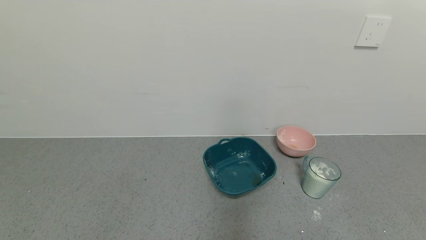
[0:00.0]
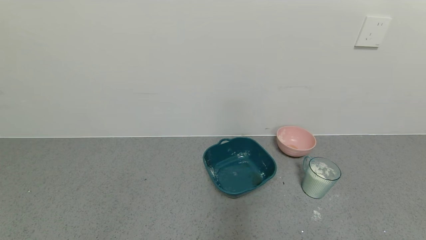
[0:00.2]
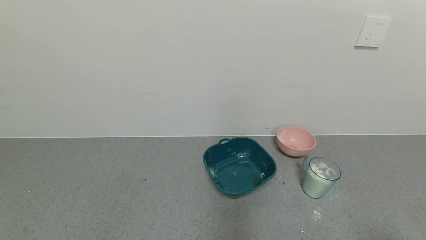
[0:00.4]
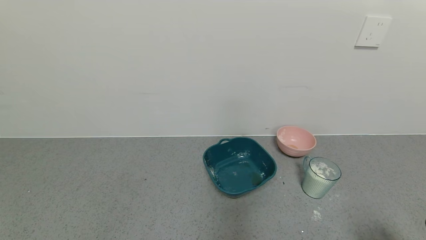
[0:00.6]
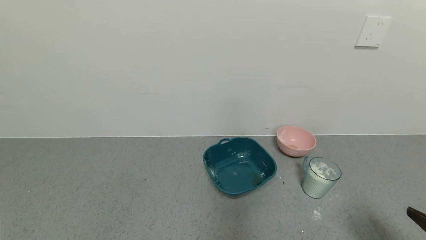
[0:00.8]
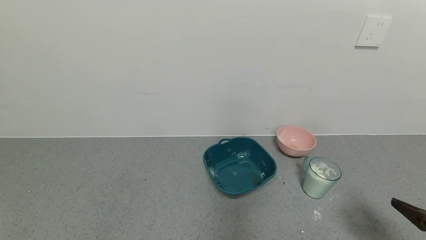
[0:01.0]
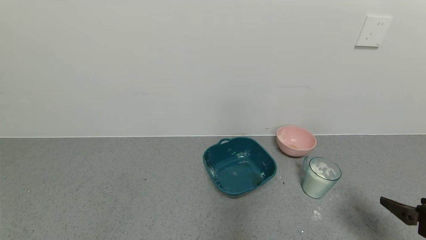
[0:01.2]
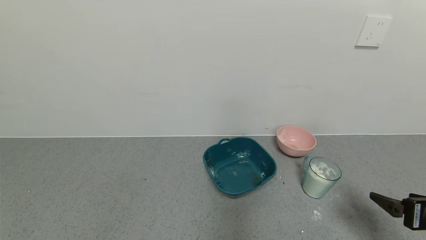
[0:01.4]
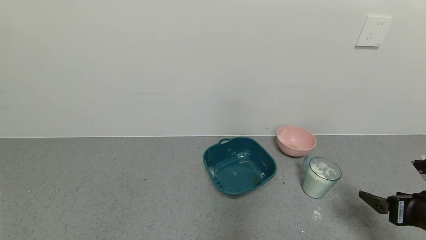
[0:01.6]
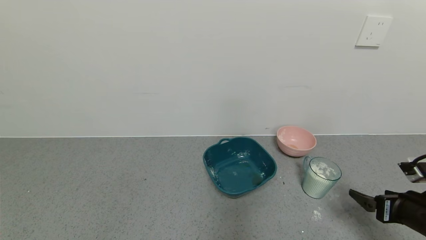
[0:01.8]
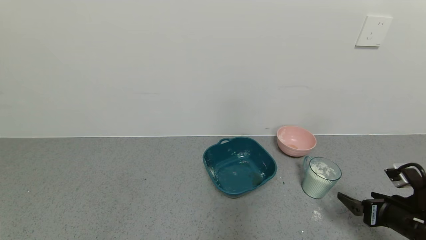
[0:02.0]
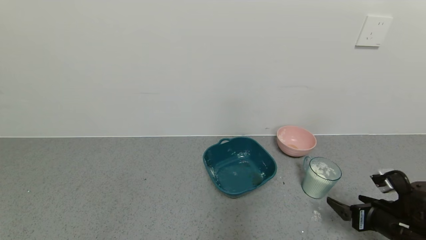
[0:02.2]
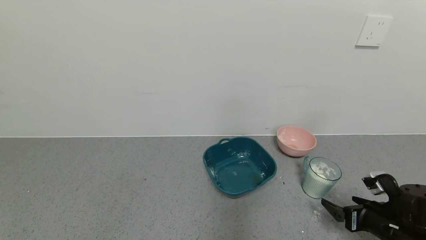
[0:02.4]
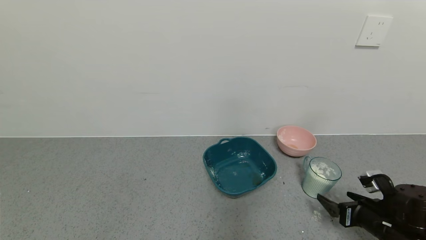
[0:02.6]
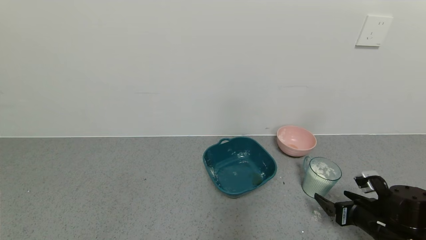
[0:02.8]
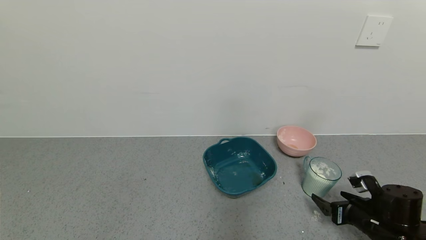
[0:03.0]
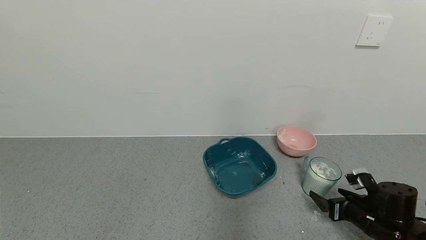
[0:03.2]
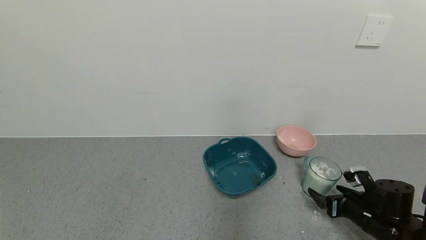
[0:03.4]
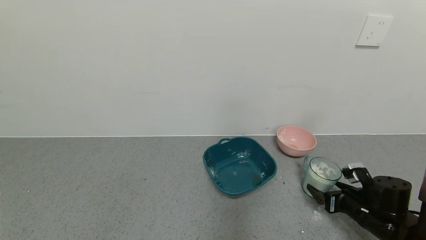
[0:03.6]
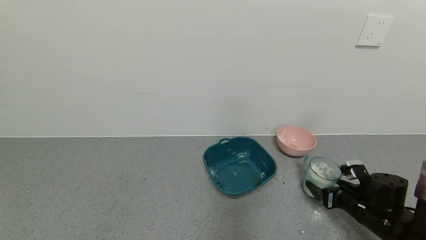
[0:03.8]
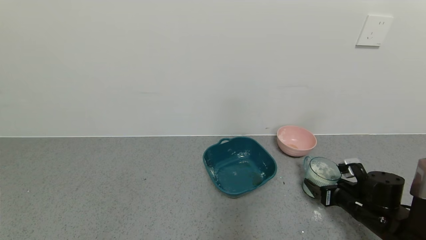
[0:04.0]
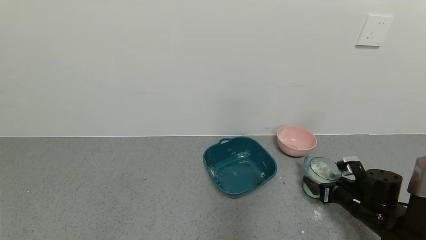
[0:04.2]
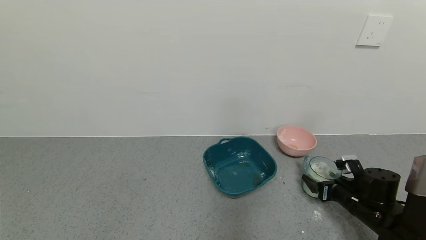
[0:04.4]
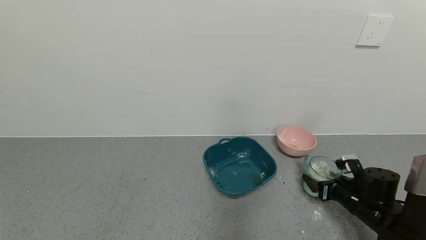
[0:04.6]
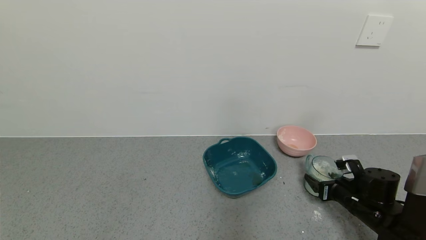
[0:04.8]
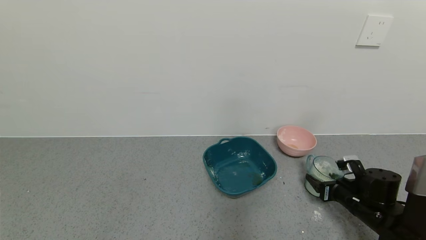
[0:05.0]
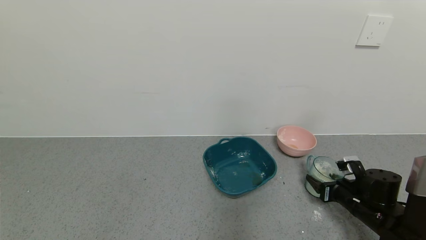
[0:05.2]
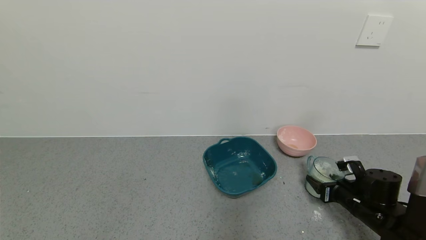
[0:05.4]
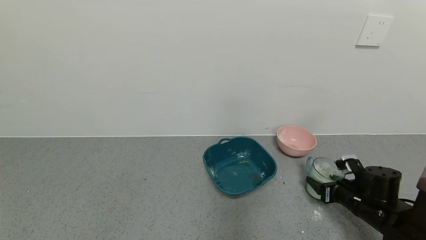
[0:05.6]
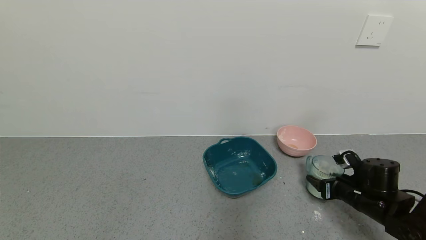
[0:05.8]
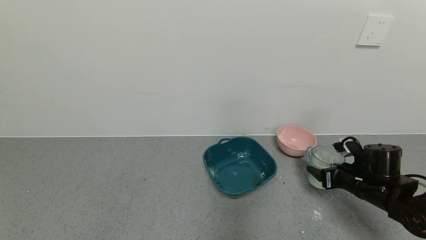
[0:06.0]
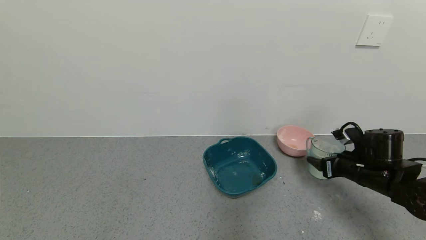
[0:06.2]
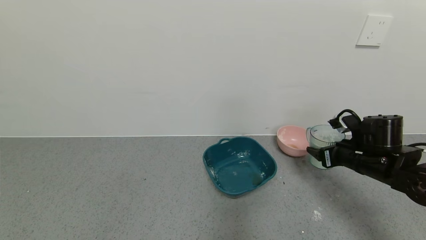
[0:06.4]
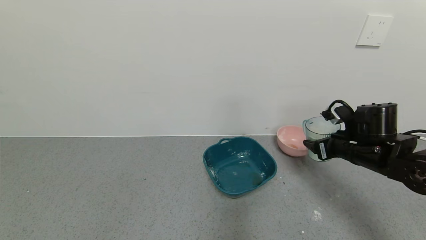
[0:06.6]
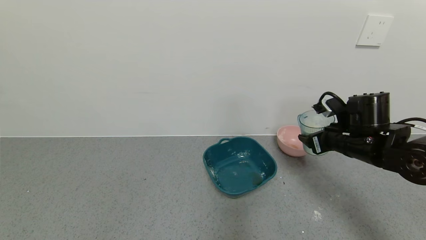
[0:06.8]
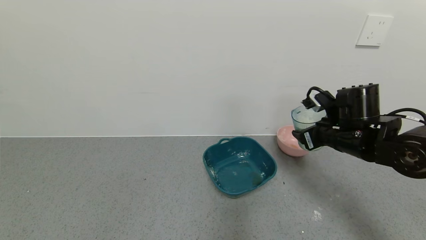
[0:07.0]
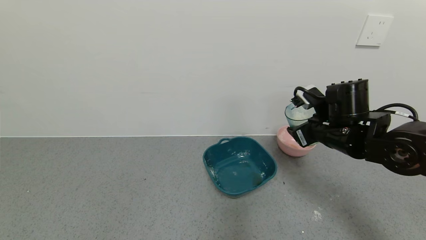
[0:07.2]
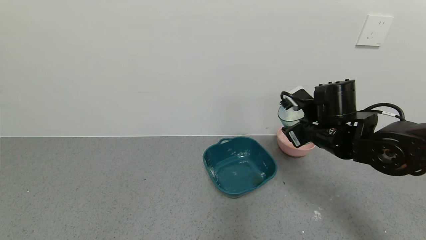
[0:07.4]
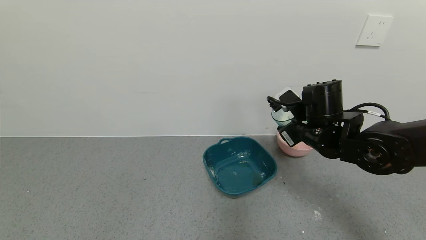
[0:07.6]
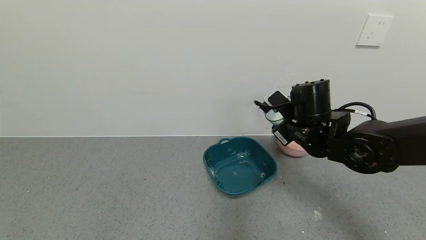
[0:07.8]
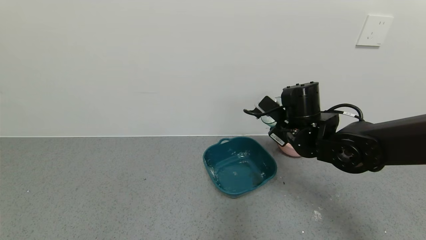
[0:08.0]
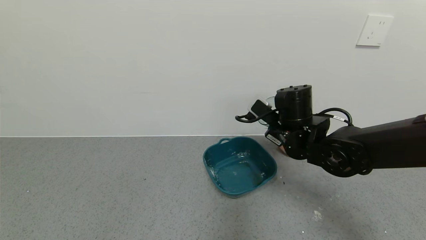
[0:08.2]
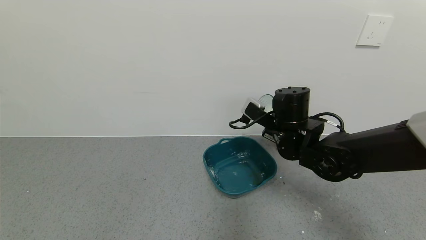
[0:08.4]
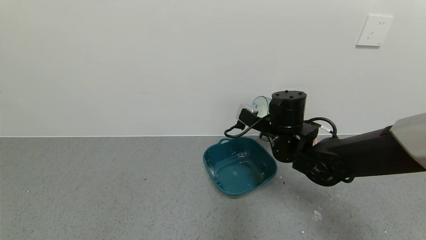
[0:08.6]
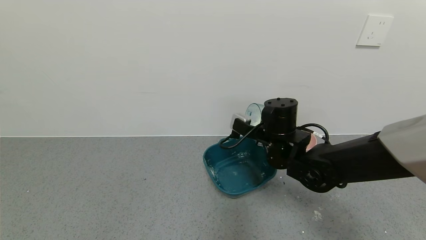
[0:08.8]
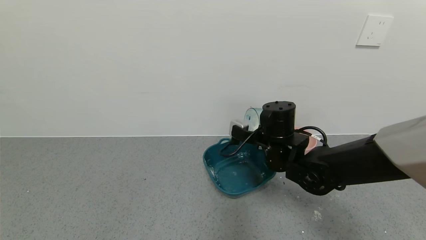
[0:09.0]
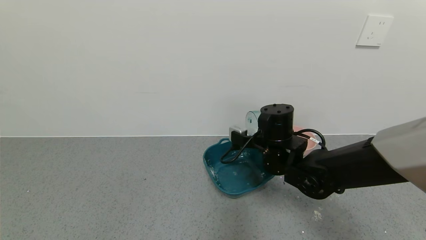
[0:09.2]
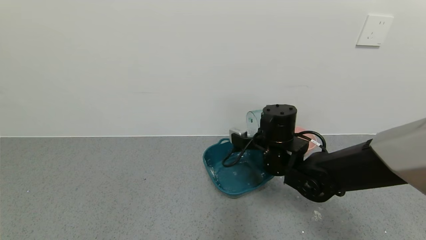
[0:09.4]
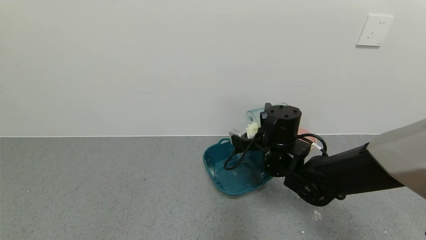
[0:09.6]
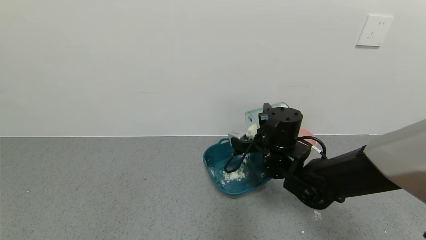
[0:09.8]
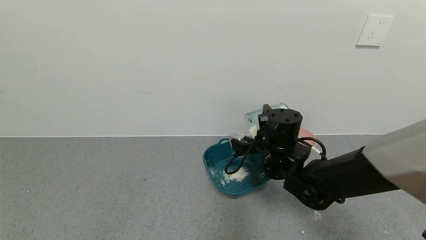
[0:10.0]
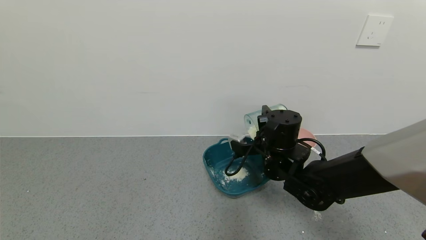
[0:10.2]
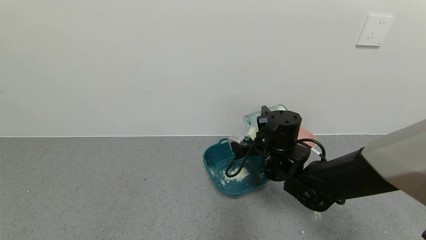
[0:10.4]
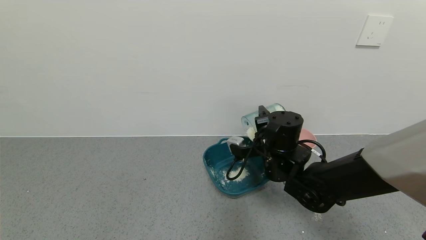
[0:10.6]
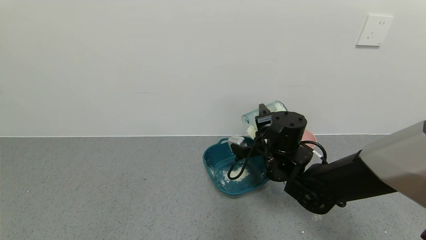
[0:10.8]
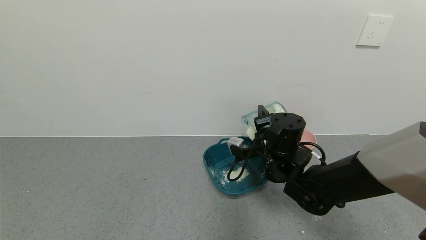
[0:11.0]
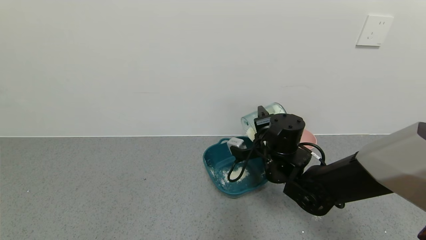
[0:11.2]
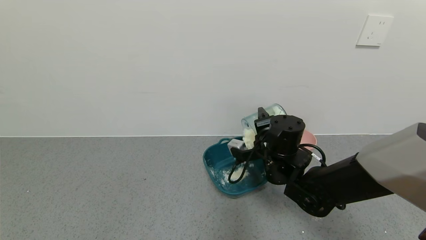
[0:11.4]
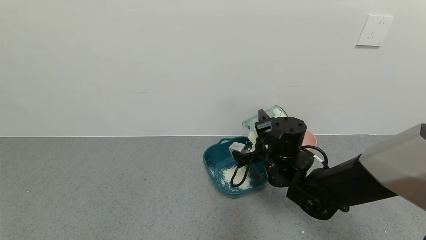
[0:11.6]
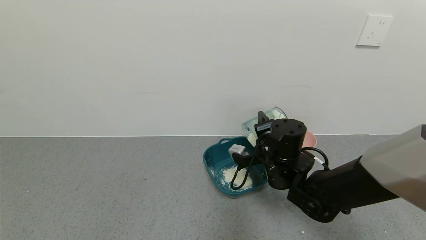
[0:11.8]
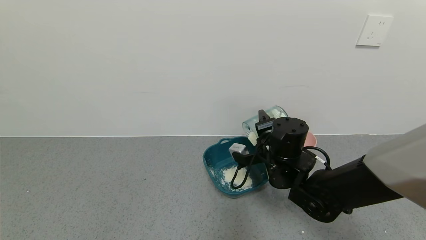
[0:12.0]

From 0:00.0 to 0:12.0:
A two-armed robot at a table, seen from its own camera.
Task of the whole recording: use a gripper to pick up the cup and pour the powder into a bowl or tray.
Step, from 0:00.0 to 0:04.6: Grasp the glass of powder with the right gripper.
From 0:00.0 to 0:01.6: The right gripper shifts some 20 cm forward.
From 0:01.6 to 0:03.0: The right gripper moves downward and forward, about 10 cm.
From 0:03.0 to 0:04.4: The right gripper shifts about 5 cm forward.
From 0:04.4 to 0:06.0: The right gripper shifts approximately 5 cm upward, and closes up.
From 0:06.0 to 0:07.6: The right gripper travels to the left and upward by roughly 20 cm.
From 0:07.6 to 0:09.0: The right gripper heads to the left, covering roughly 5 cm.
From 0:10.4 to 0:12.0: The grippers make only small movements.

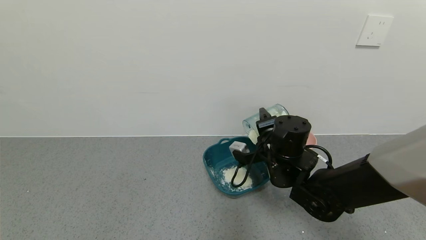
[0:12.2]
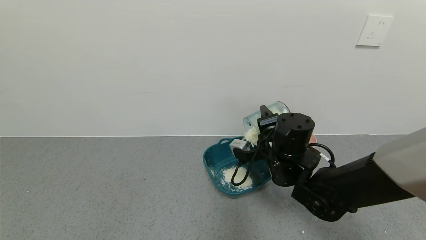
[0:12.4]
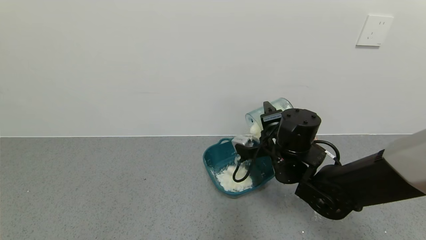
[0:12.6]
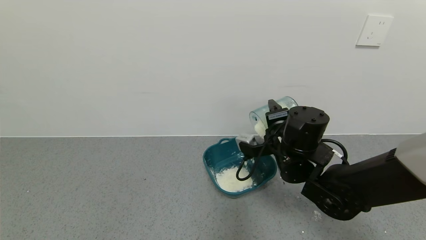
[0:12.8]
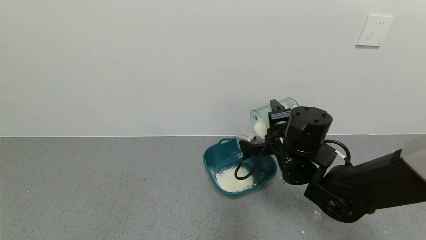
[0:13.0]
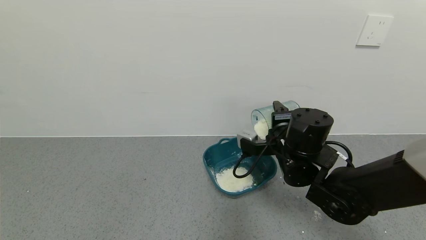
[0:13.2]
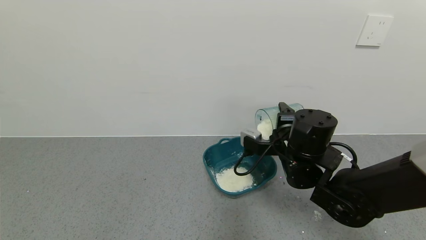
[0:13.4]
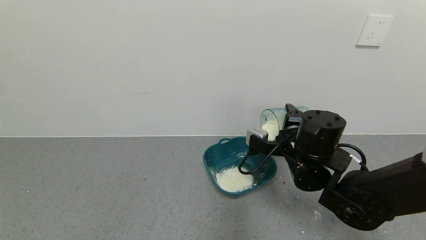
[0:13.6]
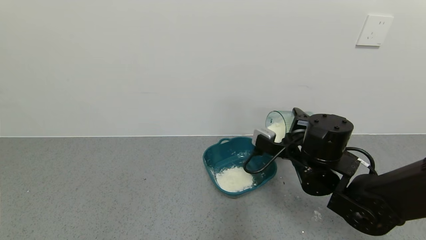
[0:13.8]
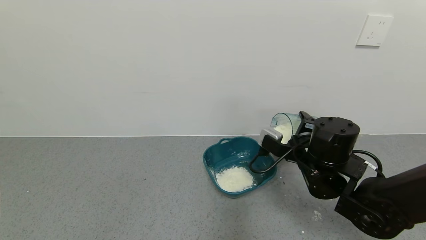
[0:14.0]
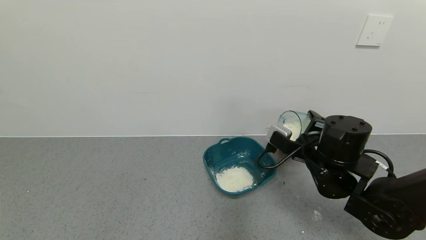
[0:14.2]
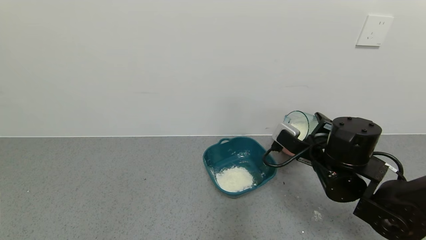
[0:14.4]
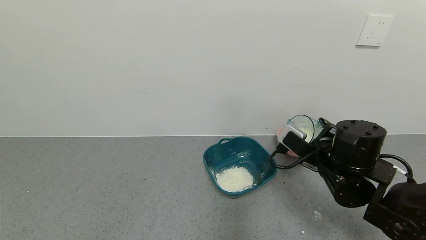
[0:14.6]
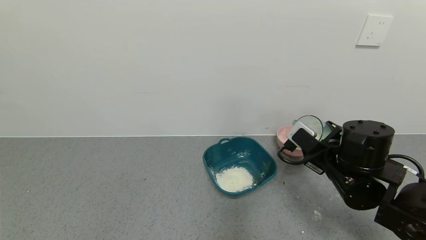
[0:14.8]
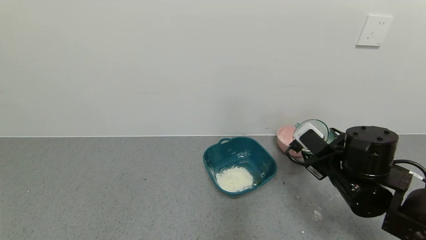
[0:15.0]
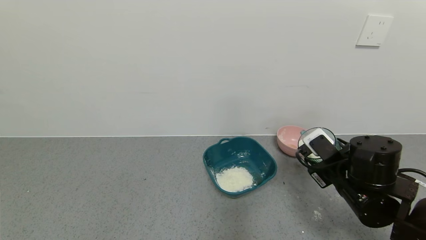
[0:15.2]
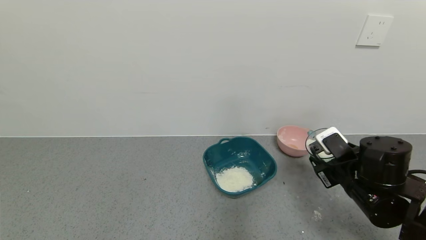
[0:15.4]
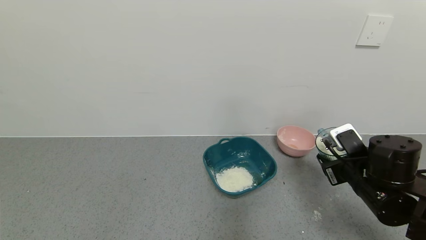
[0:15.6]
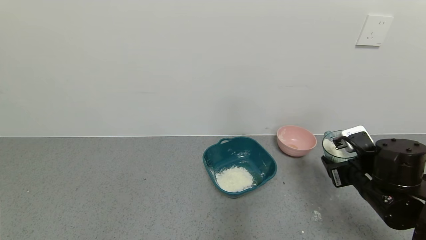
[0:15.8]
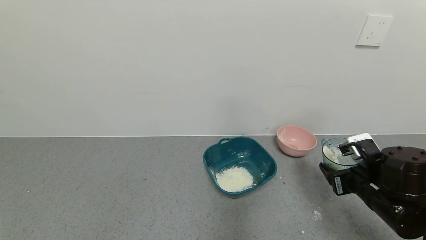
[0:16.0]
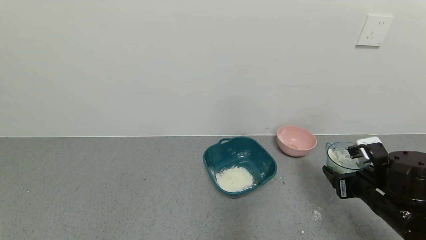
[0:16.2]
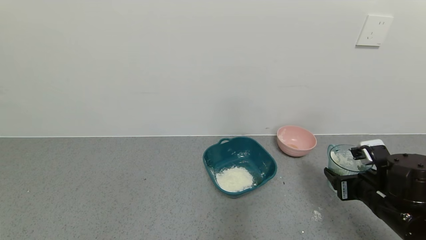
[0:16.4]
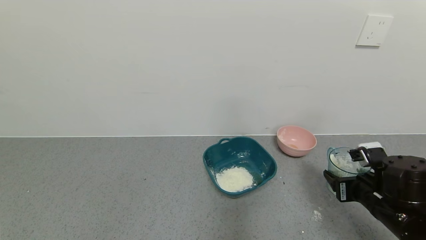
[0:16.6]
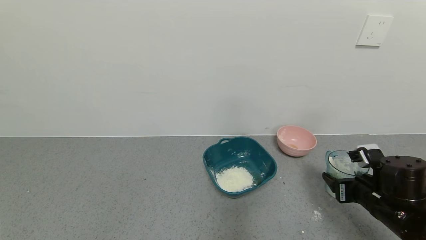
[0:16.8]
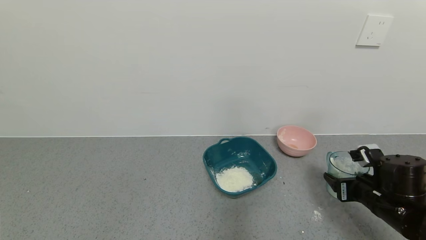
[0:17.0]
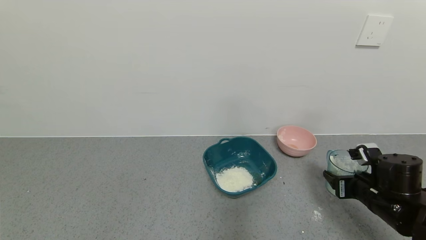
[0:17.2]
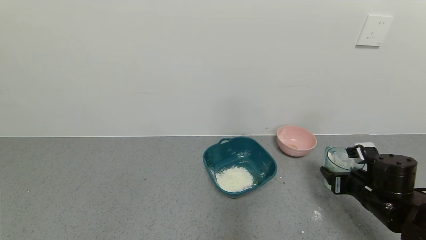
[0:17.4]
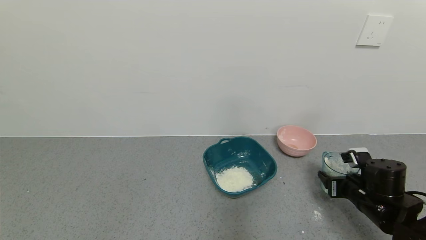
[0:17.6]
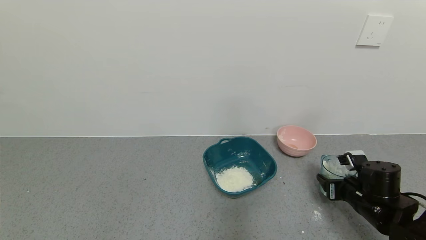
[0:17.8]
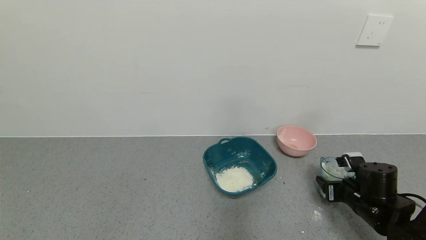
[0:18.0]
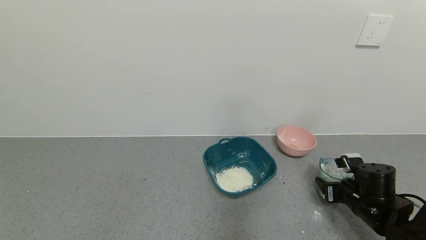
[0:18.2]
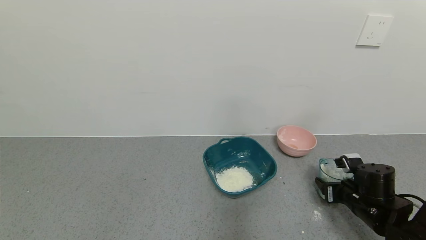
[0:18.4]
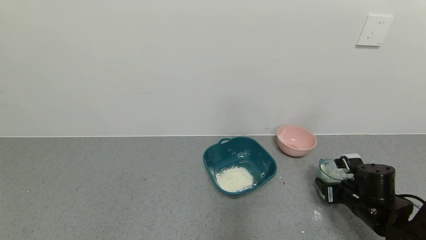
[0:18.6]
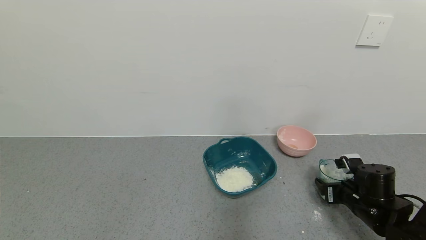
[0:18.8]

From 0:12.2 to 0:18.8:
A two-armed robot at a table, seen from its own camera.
Task of the whole recording: use a gripper to pick up the cup and pour the powder into a bowl or tray.
From 0:12.2 to 0:13.8: The right gripper moves roughly 5 cm.
From 0:13.8 to 0:15.4: The right gripper travels to the right by some 10 cm.
From 0:15.4 to 0:17.2: The right gripper is displaced to the right by approximately 5 cm.
From 0:17.2 to 0:18.8: The right gripper moves approximately 5 cm, and opens.
